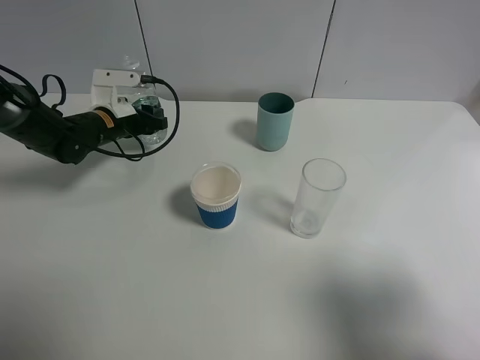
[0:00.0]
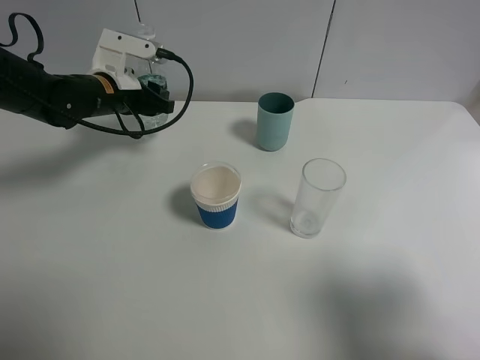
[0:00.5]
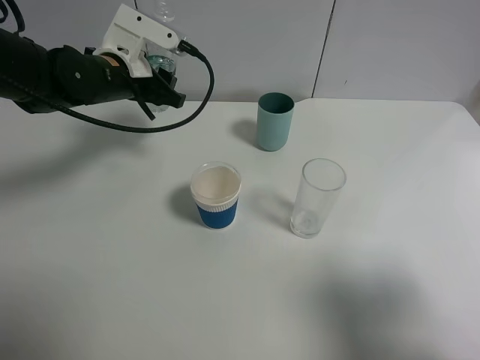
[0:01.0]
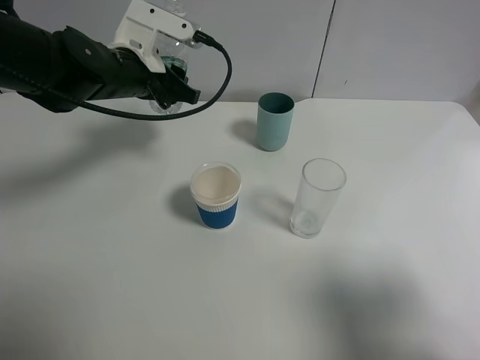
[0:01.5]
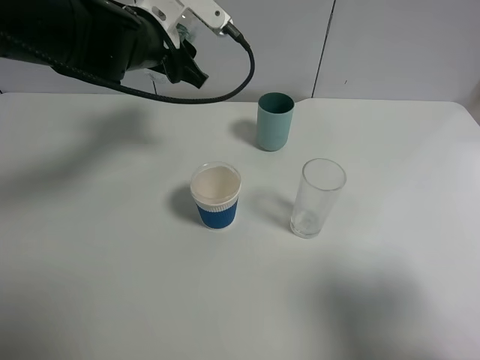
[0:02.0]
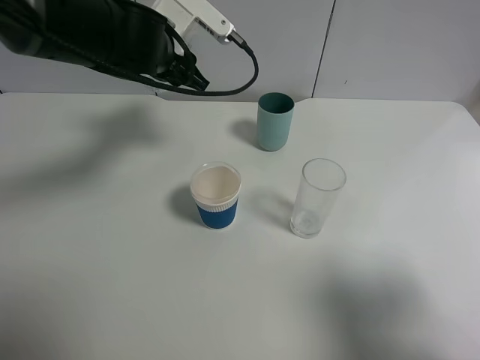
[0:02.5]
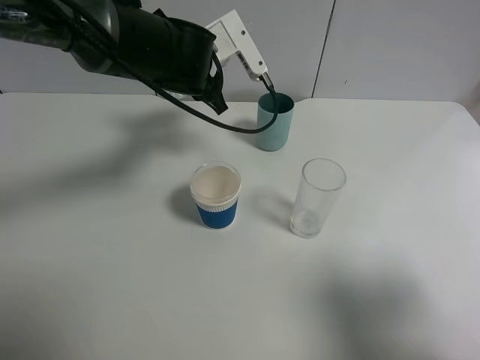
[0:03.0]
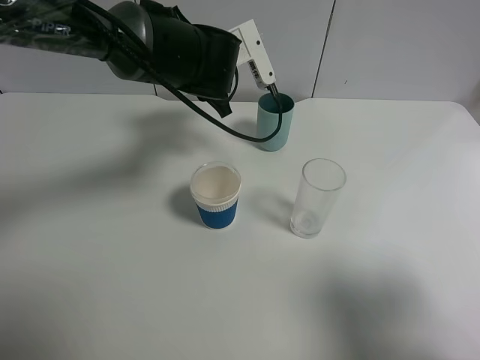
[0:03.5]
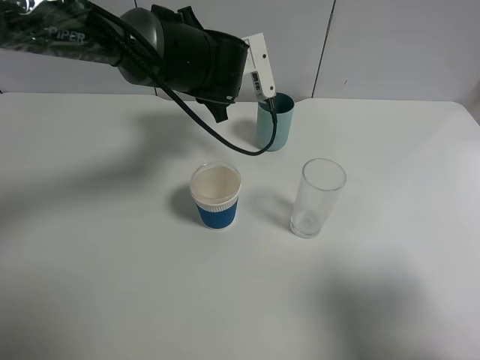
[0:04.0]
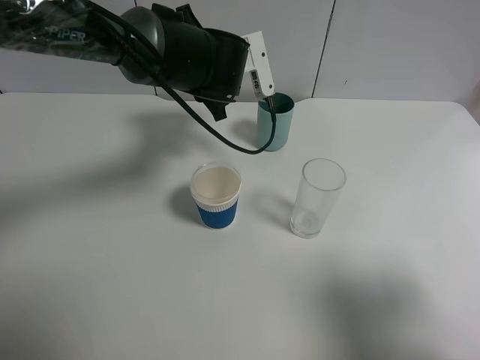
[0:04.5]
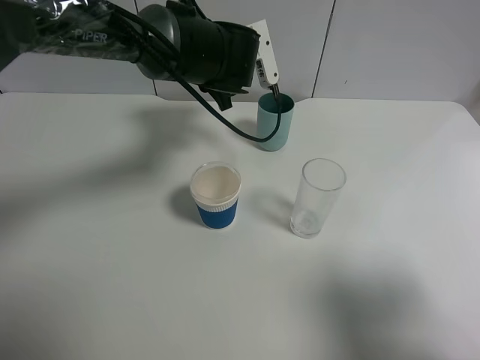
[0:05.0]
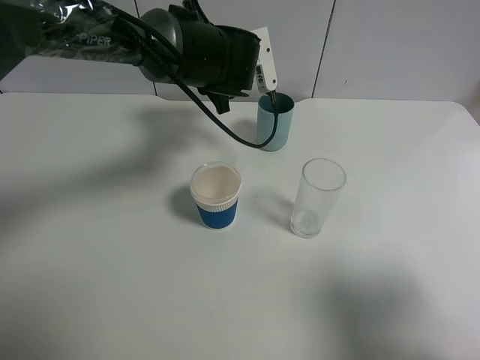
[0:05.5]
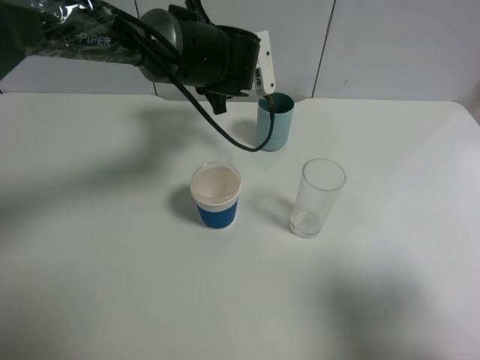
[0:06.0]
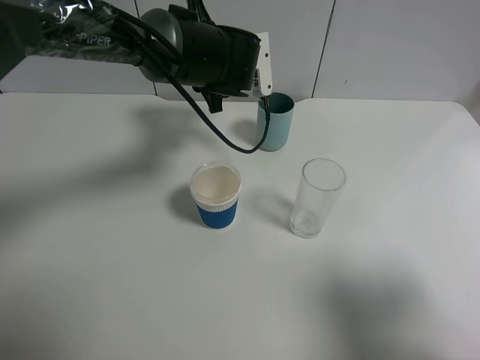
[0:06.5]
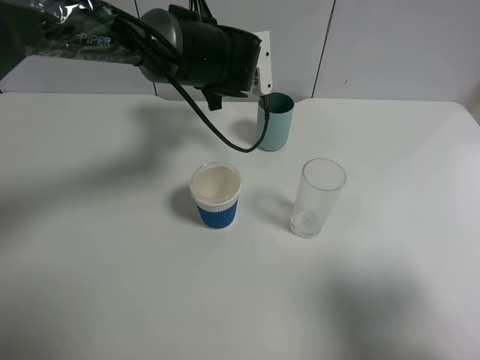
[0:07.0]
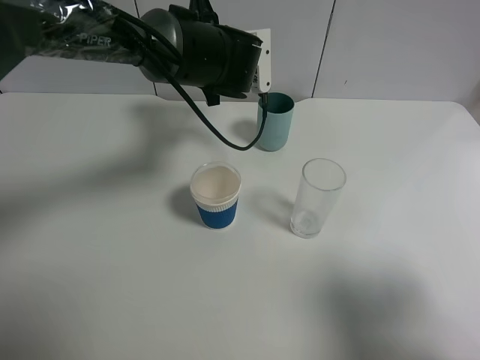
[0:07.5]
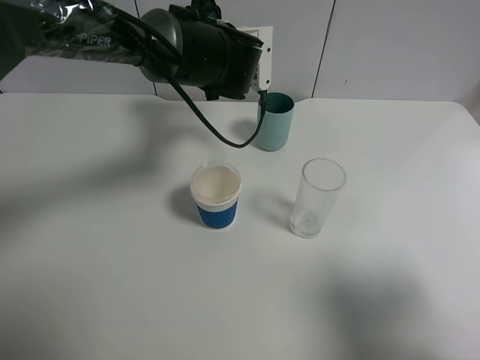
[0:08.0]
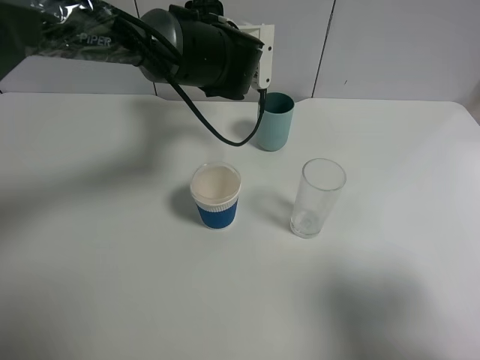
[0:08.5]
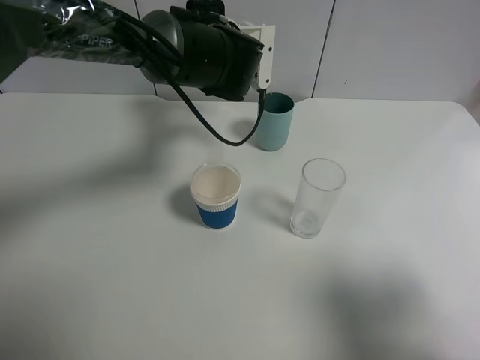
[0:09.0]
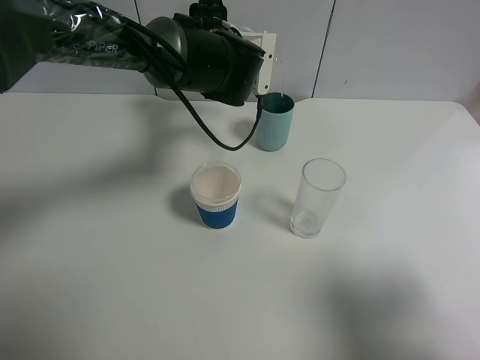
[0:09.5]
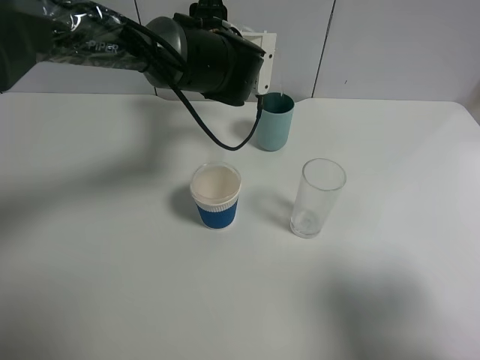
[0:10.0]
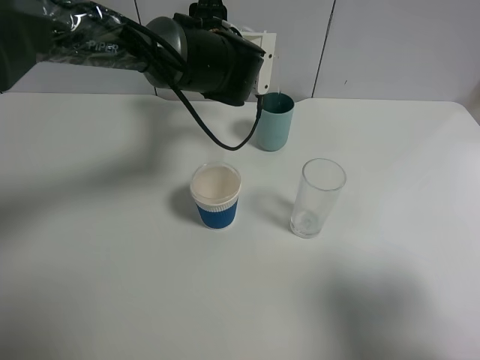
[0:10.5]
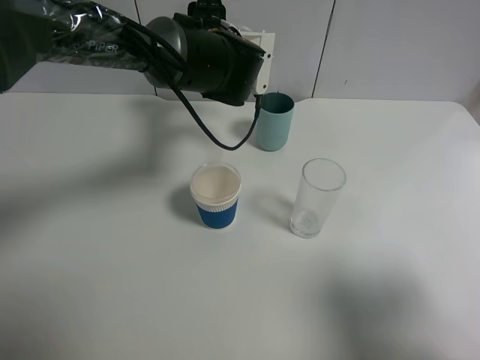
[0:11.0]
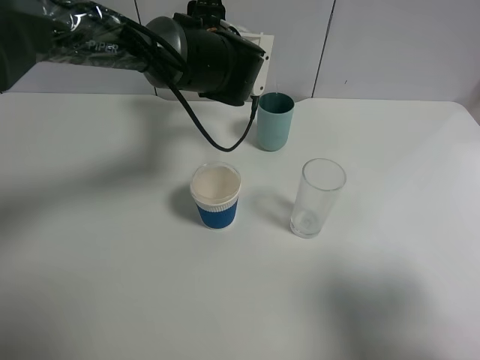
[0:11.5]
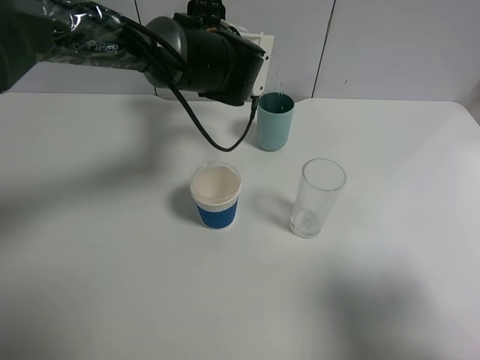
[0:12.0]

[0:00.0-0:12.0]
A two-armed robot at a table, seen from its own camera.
Task of the whole recording: use a gripper to hold the bottle of the drink and pour it into a random cup.
0:00.0 to 0:02.0: The left gripper travels upward and to the right by roughly 20 cm.
0:02.0 to 0:04.0: The left gripper goes some 10 cm to the right.
0:04.0 to 0:08.0: The grippers stay close to where they were, moving slightly.
0:08.0 to 0:10.0: The grippers move only a little.
0:10.0 to 0:12.0: Both grippers stay about where they are.

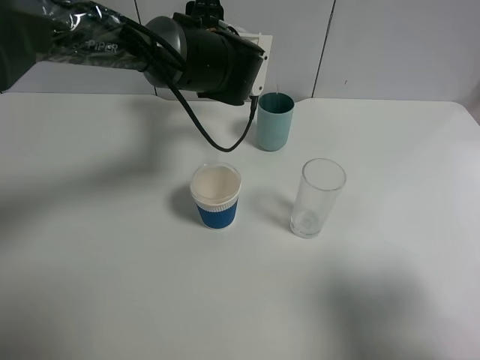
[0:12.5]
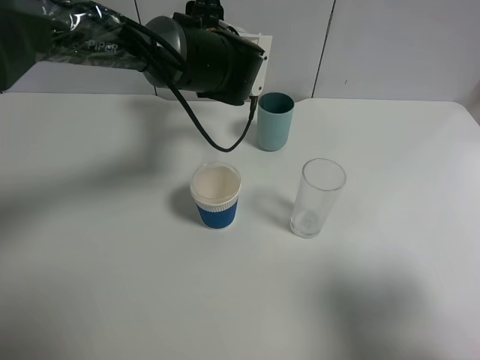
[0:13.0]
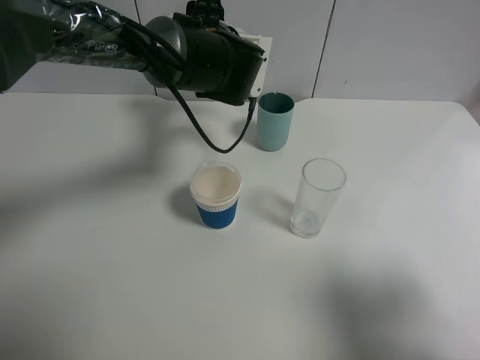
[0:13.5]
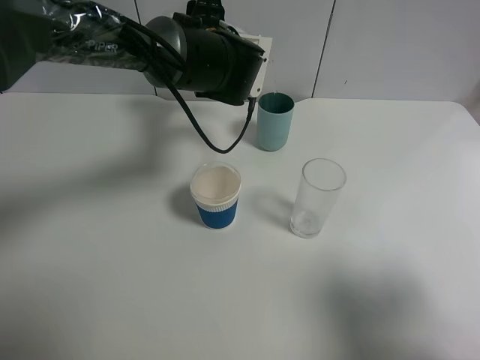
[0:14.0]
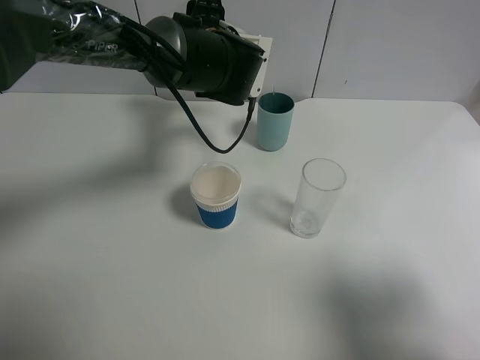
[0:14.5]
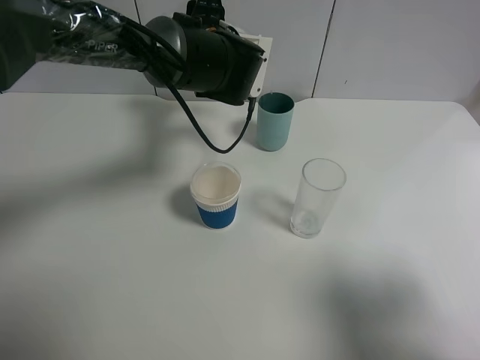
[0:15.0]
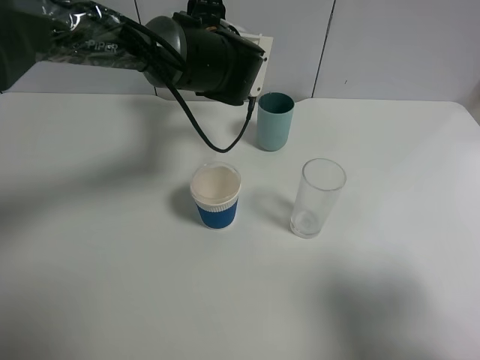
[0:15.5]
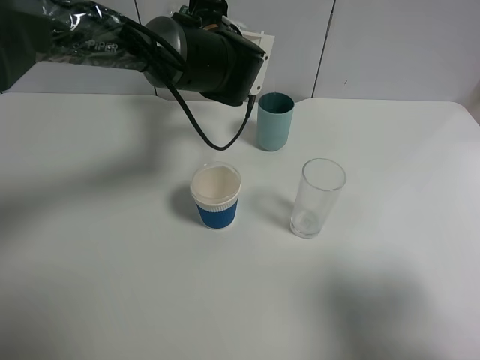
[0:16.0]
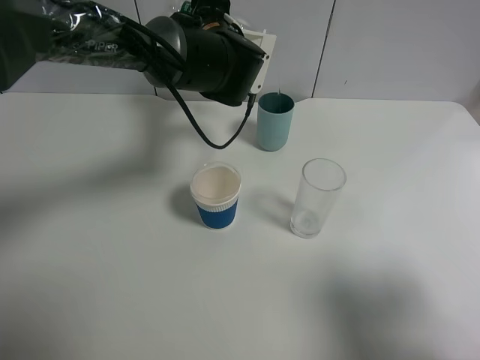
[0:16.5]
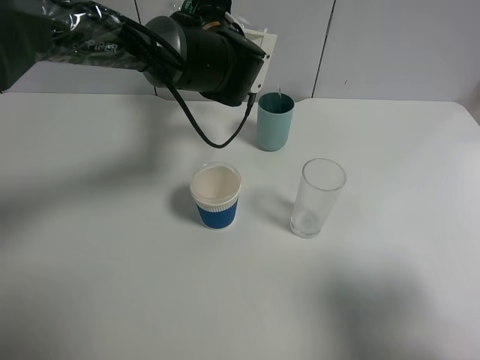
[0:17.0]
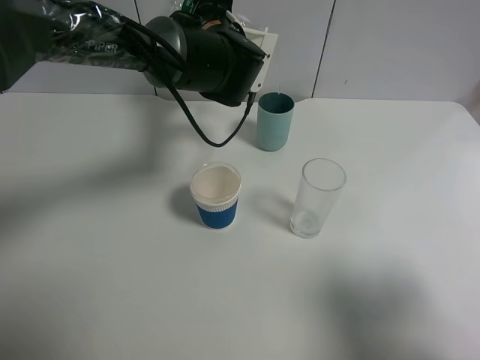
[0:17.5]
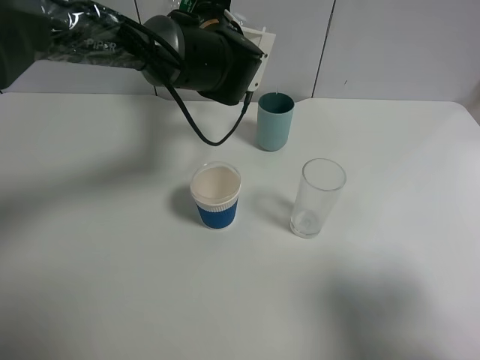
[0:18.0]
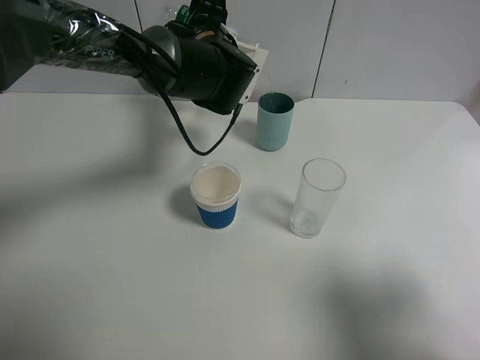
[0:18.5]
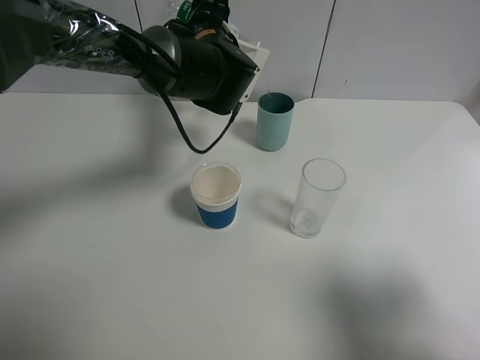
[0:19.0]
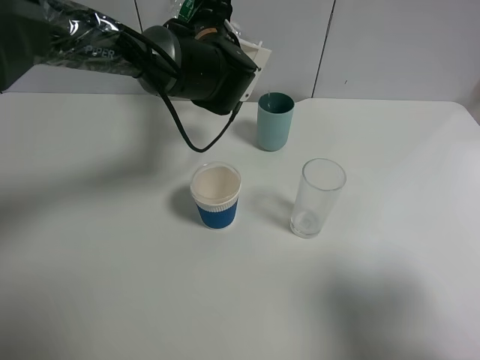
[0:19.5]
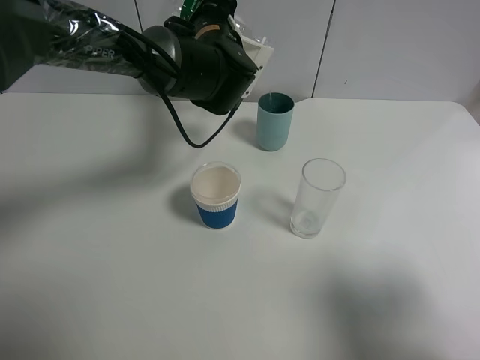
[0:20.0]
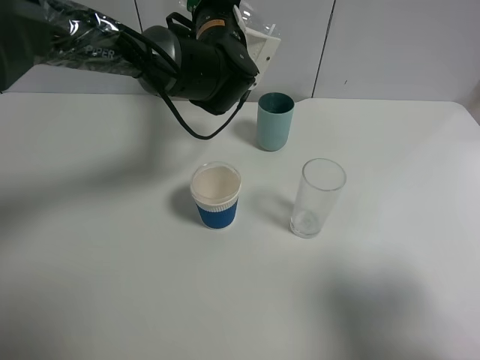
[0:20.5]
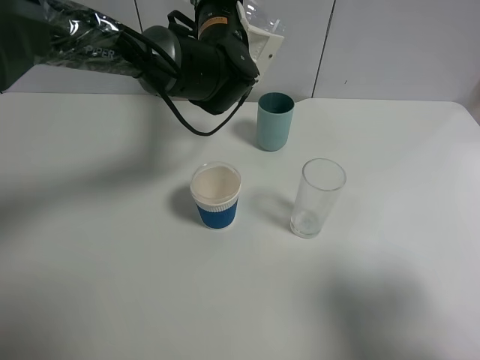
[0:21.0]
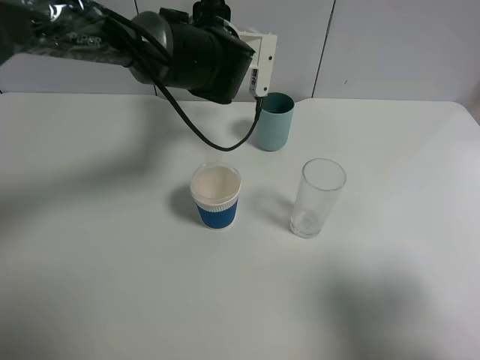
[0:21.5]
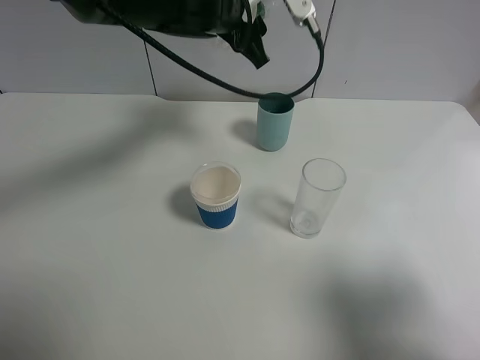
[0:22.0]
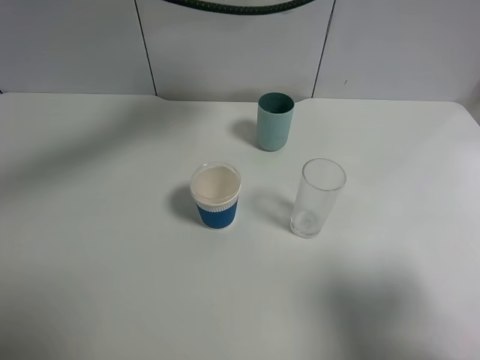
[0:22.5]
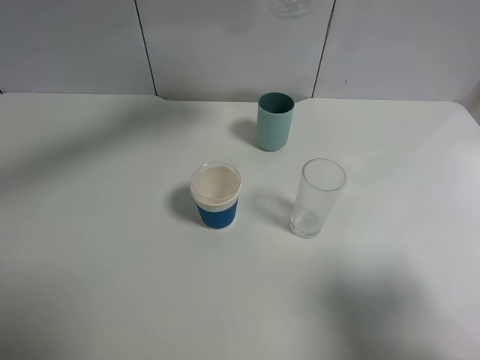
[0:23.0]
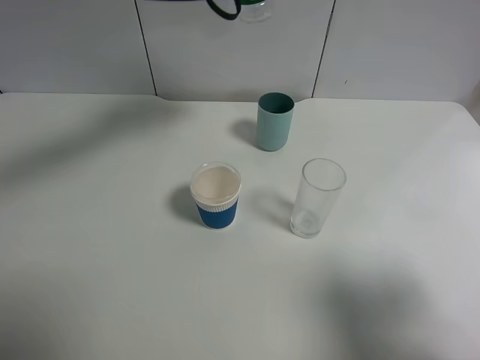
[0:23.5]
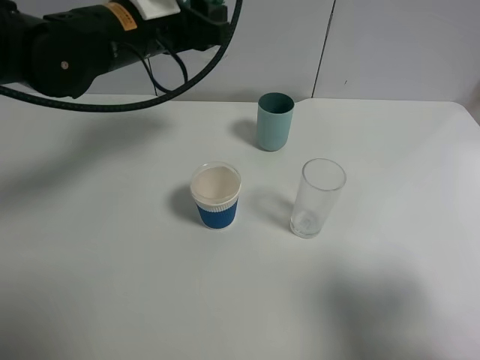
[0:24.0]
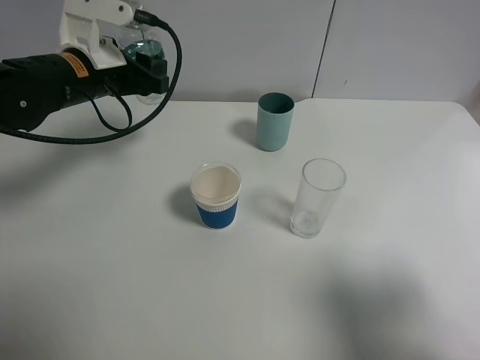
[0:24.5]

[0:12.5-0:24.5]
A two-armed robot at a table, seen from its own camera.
Task of the whole recording: use a gripper to hold the bottle of the drink and pour it into a random cup.
Step, 0:12.5 to 0:21.5: Pour the mineral water into the cyan cup with the left gripper.
0:12.5 to 0:14.5: Both grippers stay put.
0:16.5 to 0:20.5: The grippers move only a little.
0:20.5 to 0:22.5: The left gripper travels upward by approximately 10 cm.
0:22.5 to 0:24.5: The left gripper moves to the left and downward, about 20 cm.

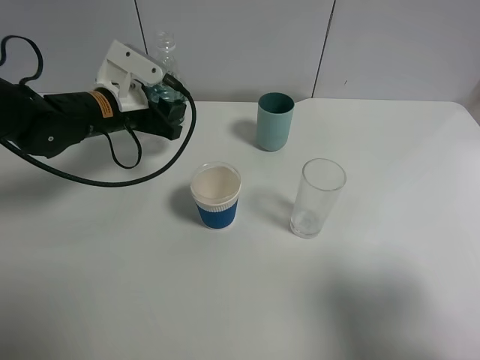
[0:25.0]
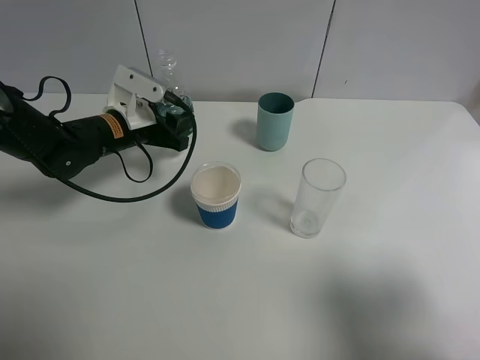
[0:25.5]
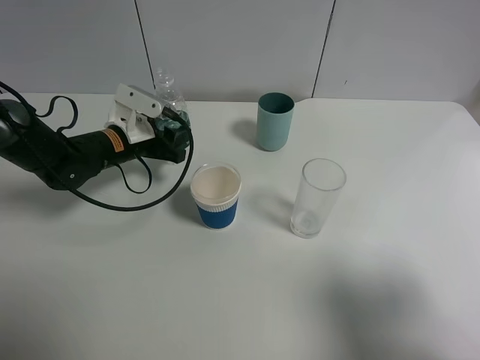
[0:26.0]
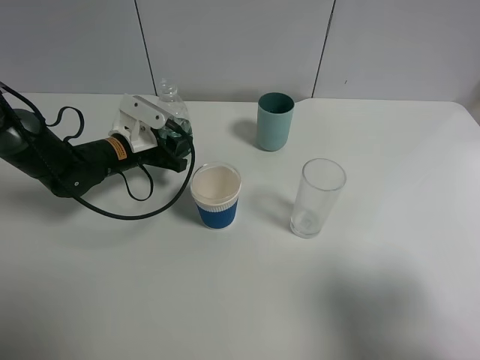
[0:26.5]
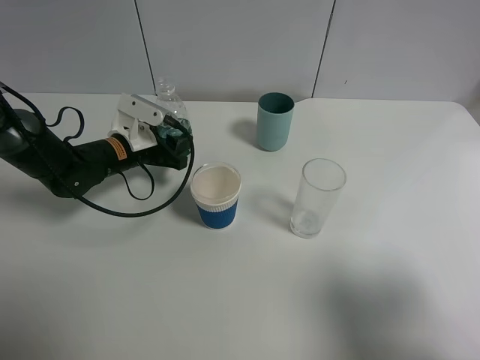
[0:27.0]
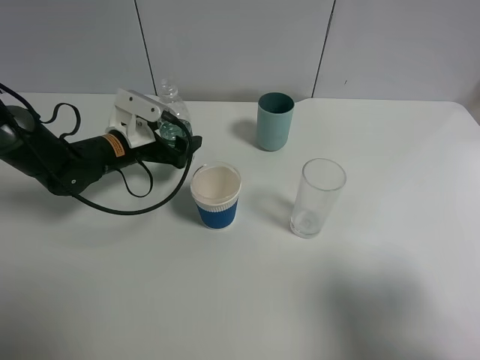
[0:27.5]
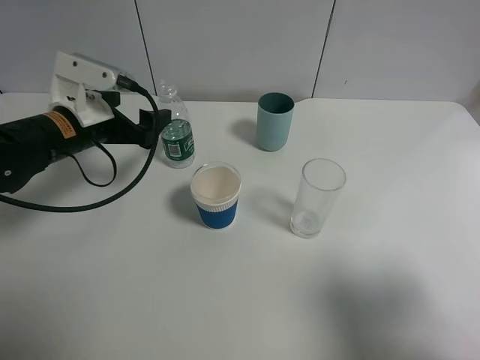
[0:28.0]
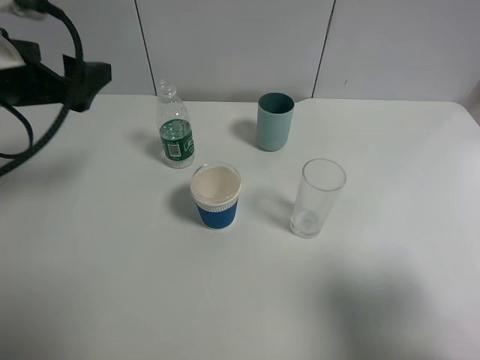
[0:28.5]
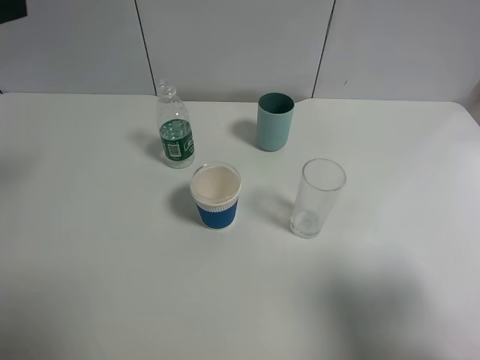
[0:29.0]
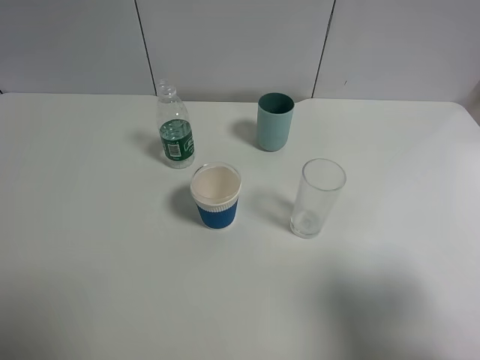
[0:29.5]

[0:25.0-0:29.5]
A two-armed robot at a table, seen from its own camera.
Task of the whole recording: use a gripper to hold the bottle of the drink and pour it into a random cup.
Step, 0:25.0 to 0:27.5: Place the mineral water bottle on the table with the left gripper.
0:25.0 to 0:27.0: The left gripper is displaced downward by roughly 10 cm.
0:27.0 to 0:29.5: The left gripper travels upward and backward by some 40 cm, and opens up.
